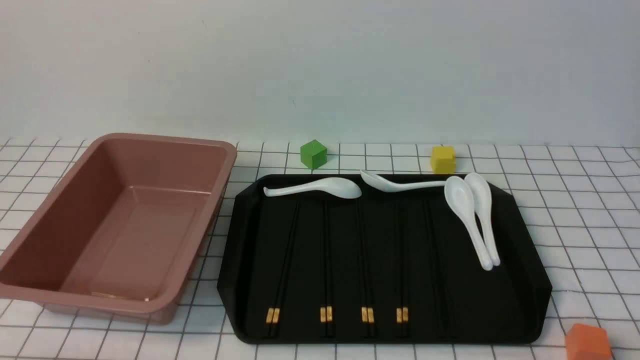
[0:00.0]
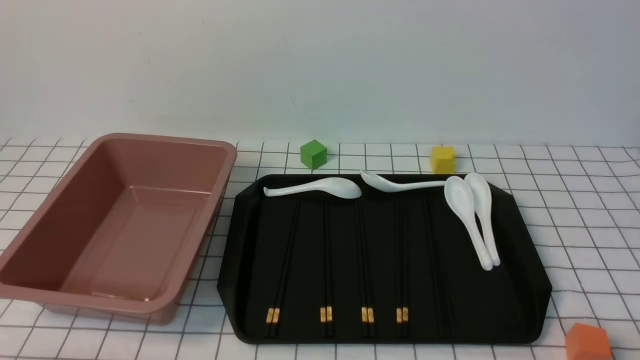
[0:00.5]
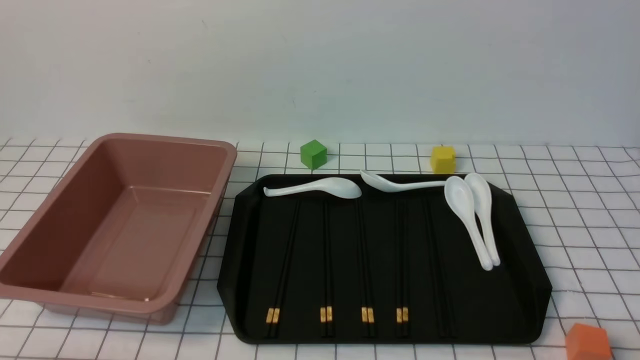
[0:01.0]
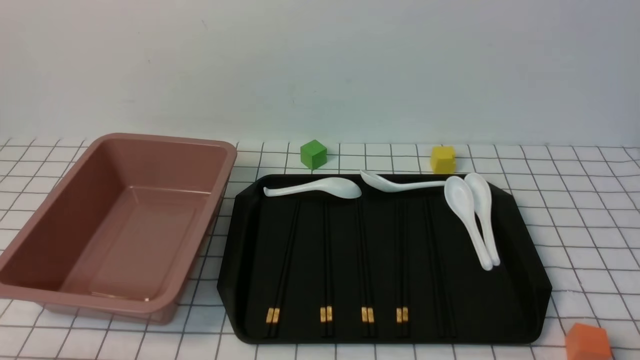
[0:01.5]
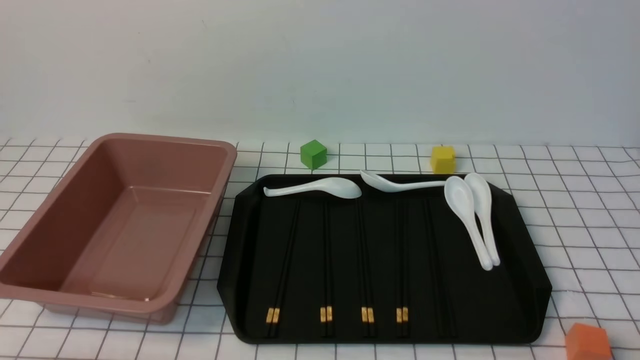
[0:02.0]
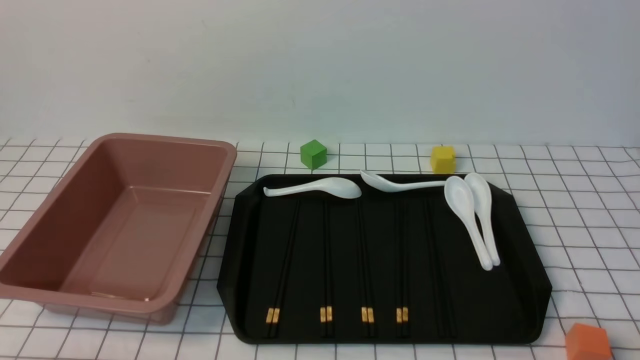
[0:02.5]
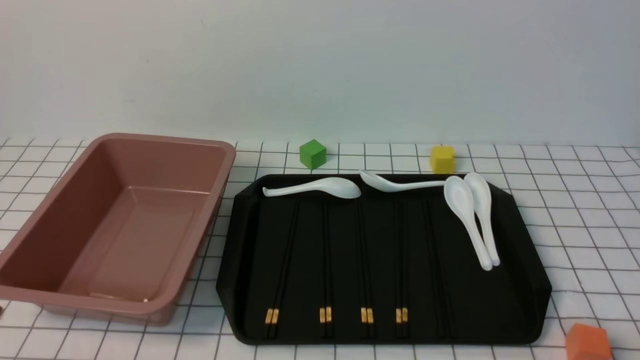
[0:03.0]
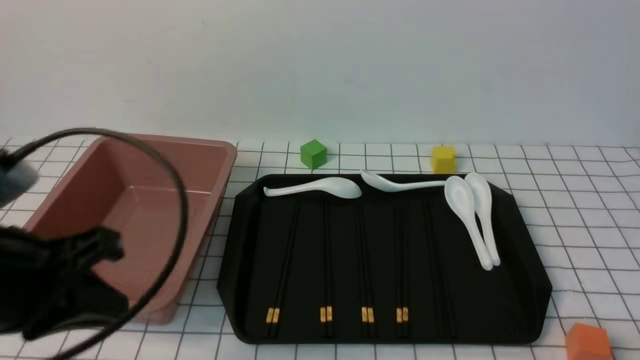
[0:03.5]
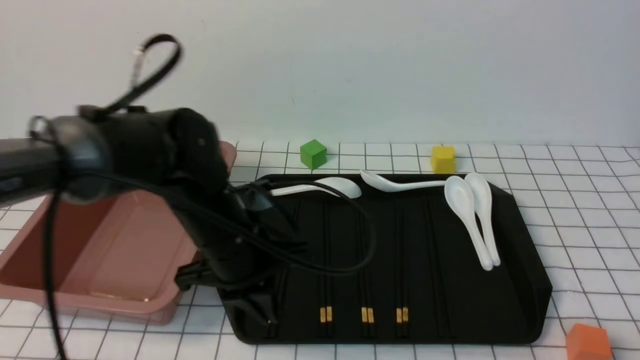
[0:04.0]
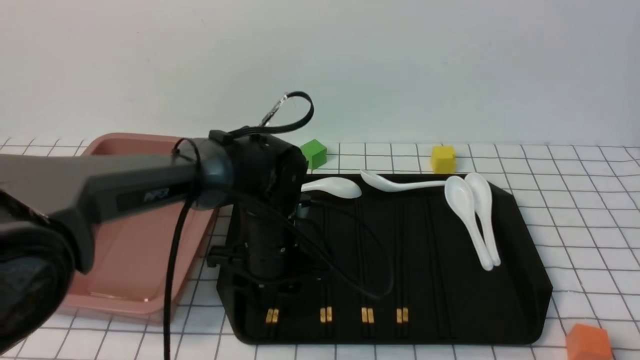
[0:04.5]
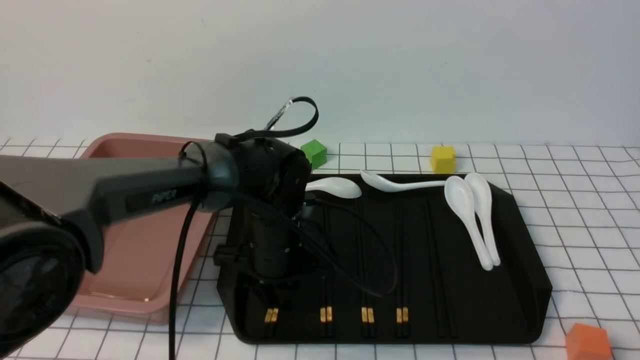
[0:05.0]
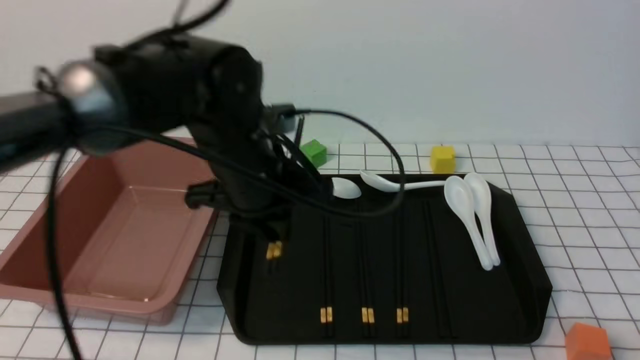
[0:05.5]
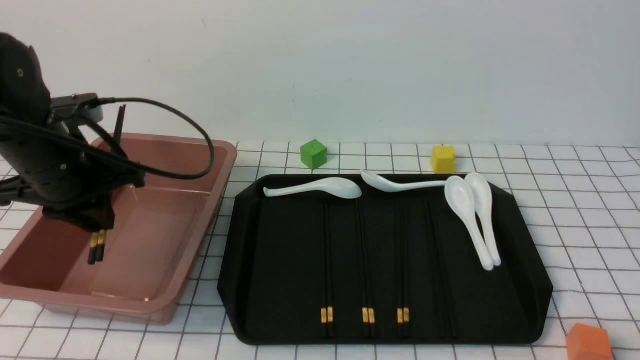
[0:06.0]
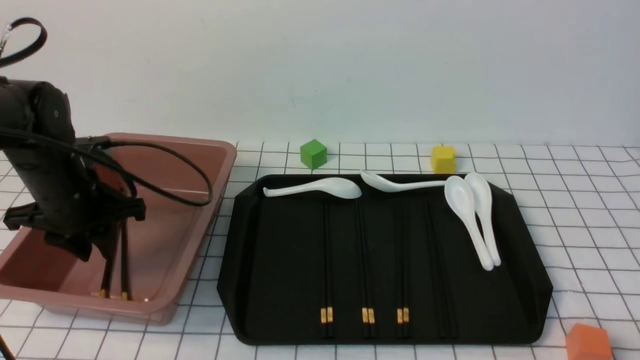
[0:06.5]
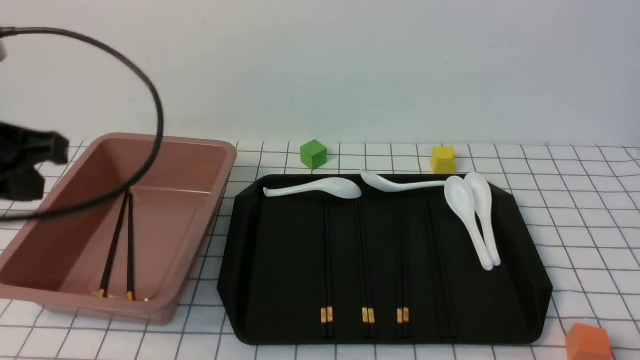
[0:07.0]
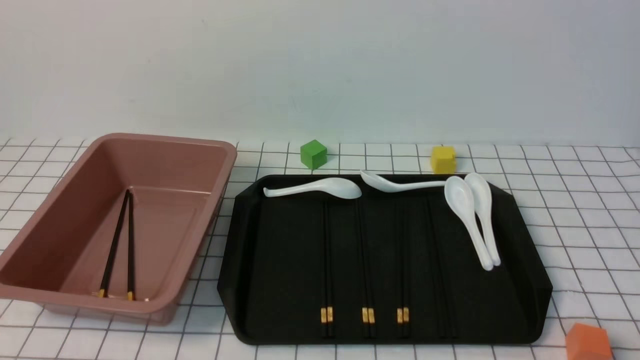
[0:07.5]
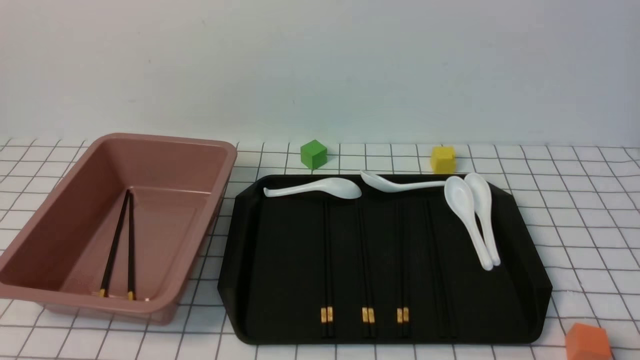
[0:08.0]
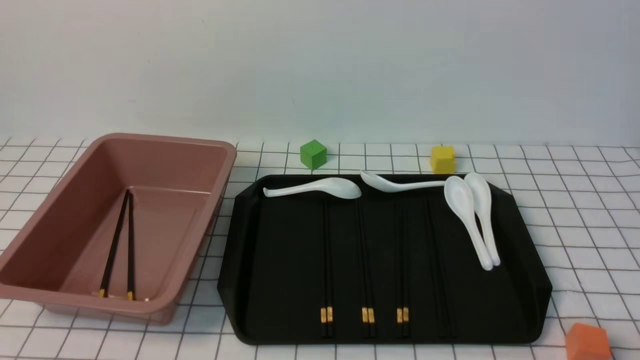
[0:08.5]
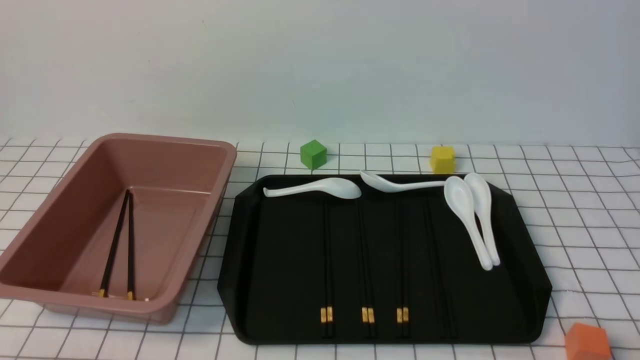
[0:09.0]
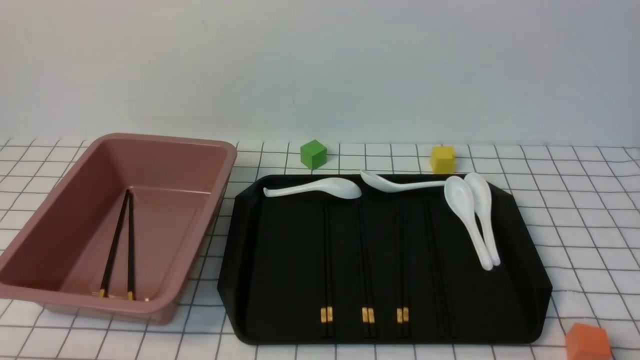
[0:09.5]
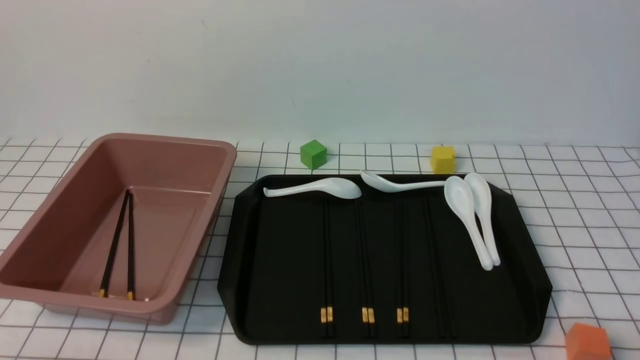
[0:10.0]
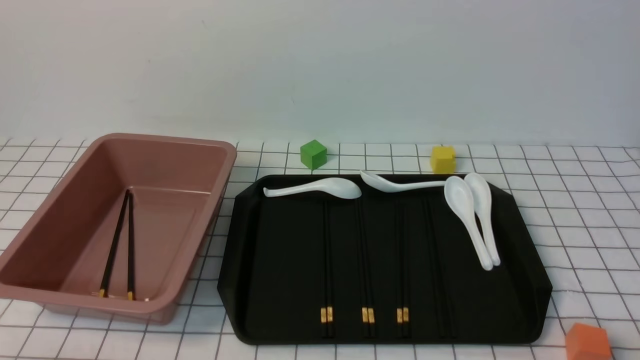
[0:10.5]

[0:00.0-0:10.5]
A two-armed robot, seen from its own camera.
Step, 0:00.0 to 0:05.0: use the left arm to grab a pair of chopsticks.
Step, 0:05.5 to 0:06.5: use the left arm to put the chopsticks into the lunch box.
0:02.0 to 0:04.0: The left gripper heads forward and to the right, covering roughly 25 cm, and closes.
0:04.0 to 0:06.5: The left gripper travels to the left and forward by approximately 15 cm, and opens its fingers.
0:06.5 to 0:08.5: The left gripper is displaced backward by roughly 30 cm, and closes up.

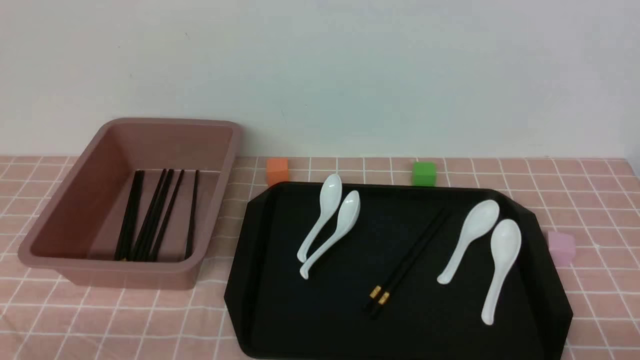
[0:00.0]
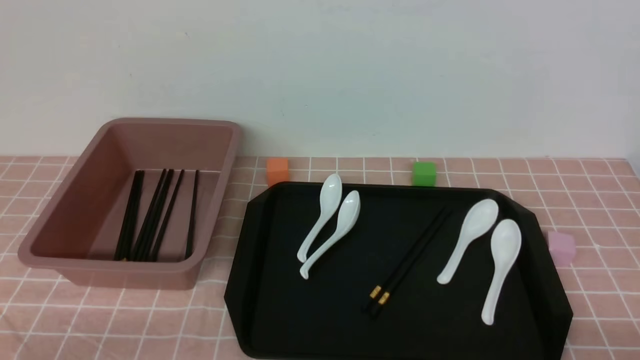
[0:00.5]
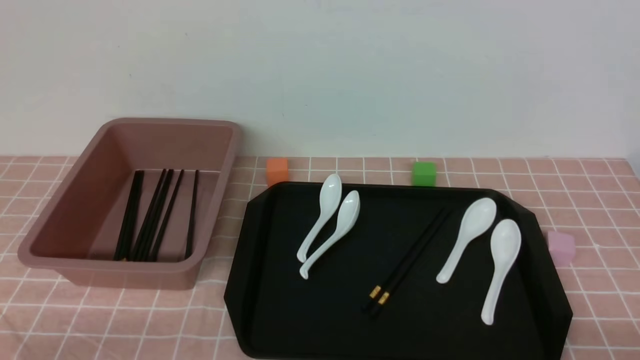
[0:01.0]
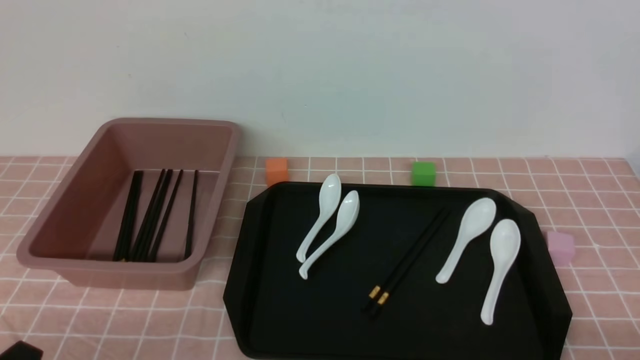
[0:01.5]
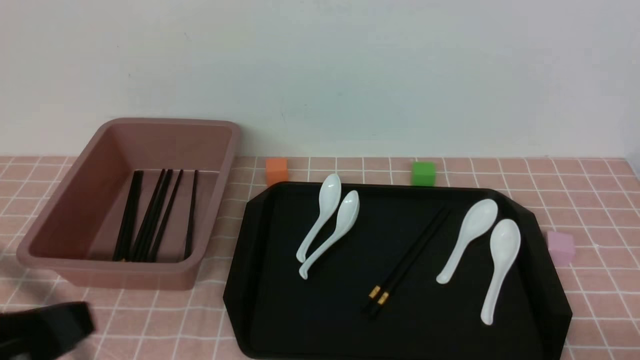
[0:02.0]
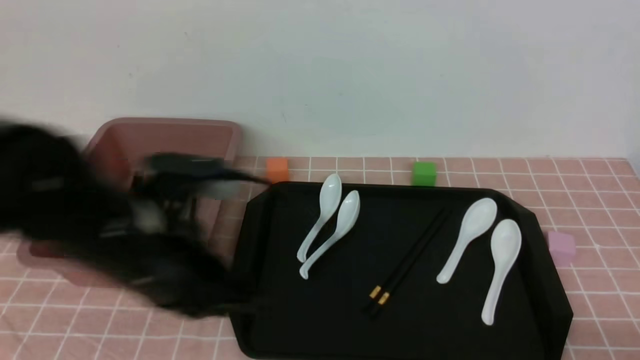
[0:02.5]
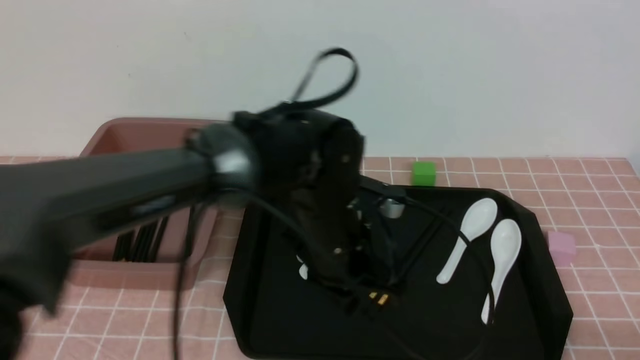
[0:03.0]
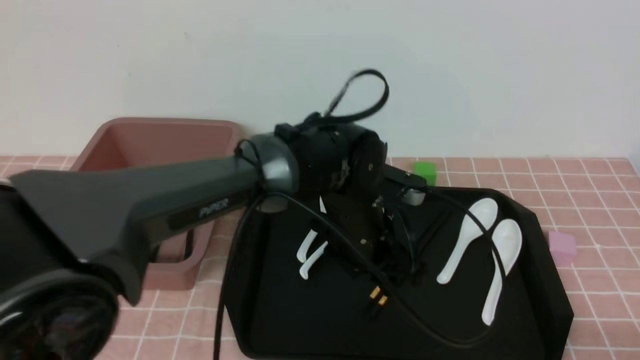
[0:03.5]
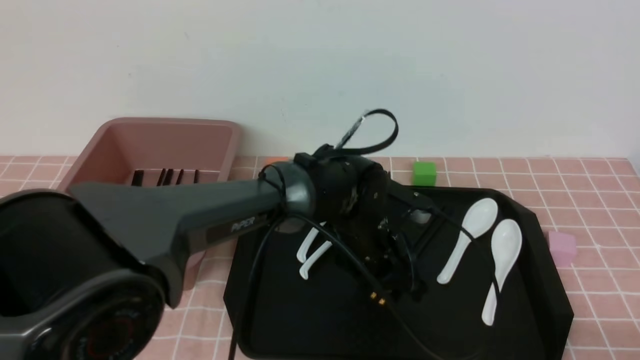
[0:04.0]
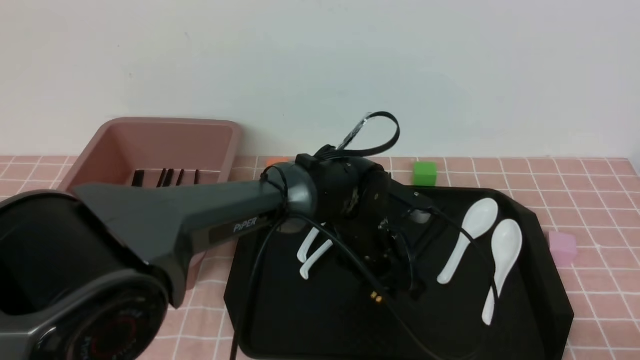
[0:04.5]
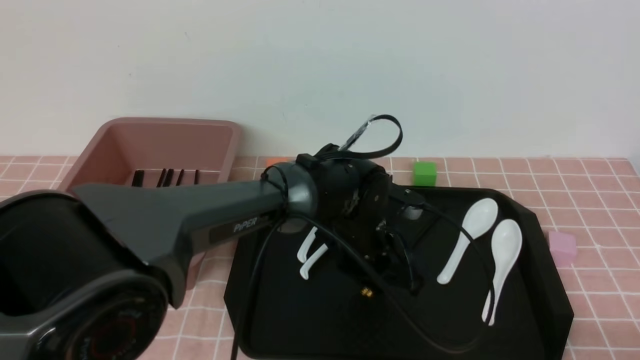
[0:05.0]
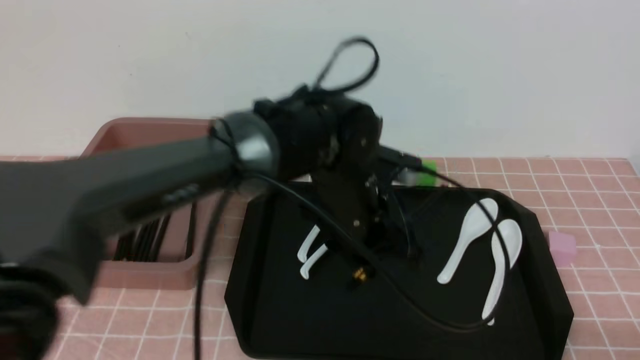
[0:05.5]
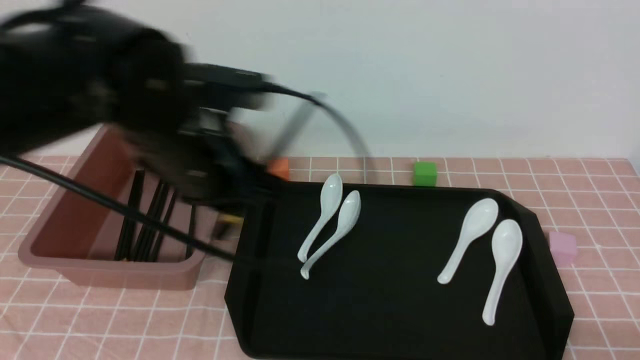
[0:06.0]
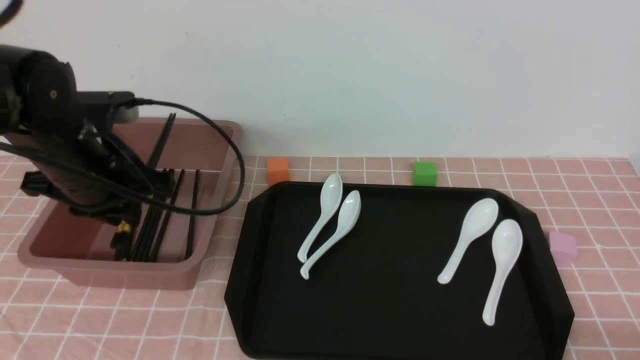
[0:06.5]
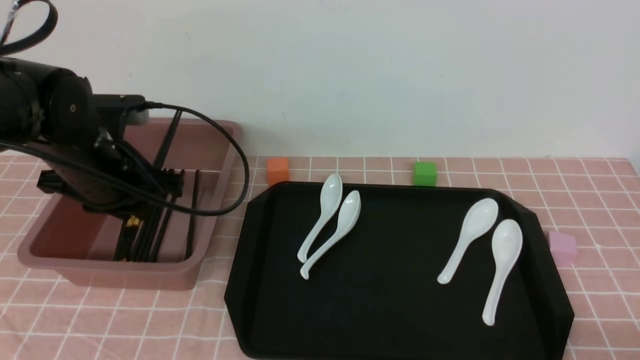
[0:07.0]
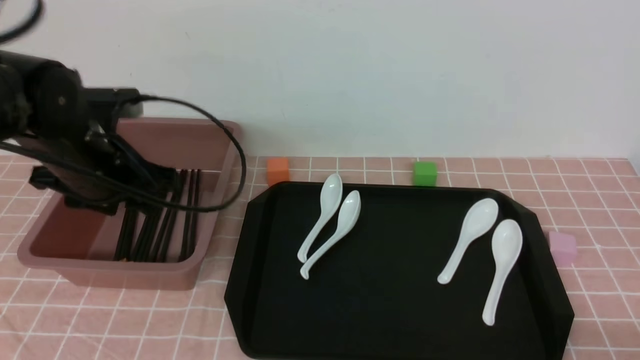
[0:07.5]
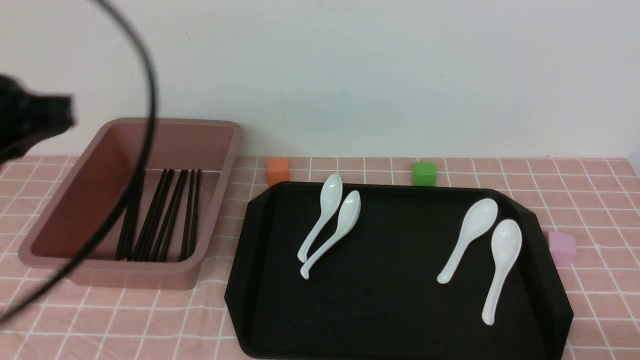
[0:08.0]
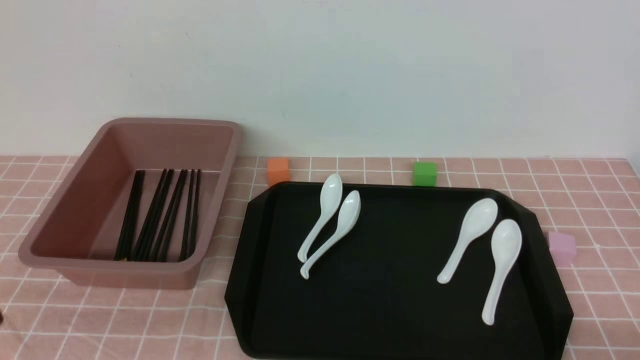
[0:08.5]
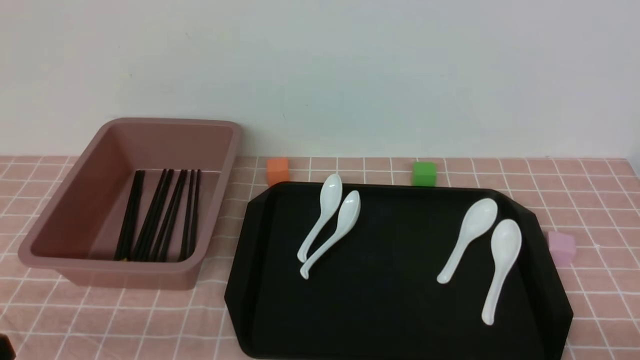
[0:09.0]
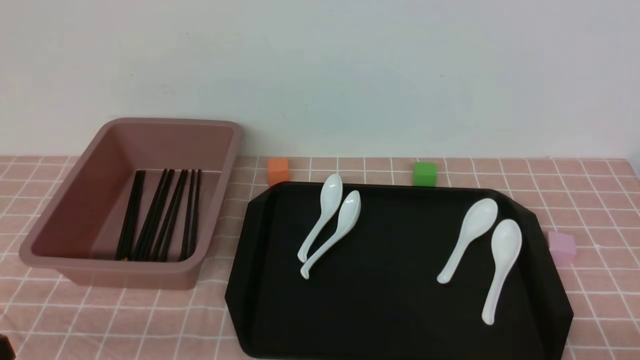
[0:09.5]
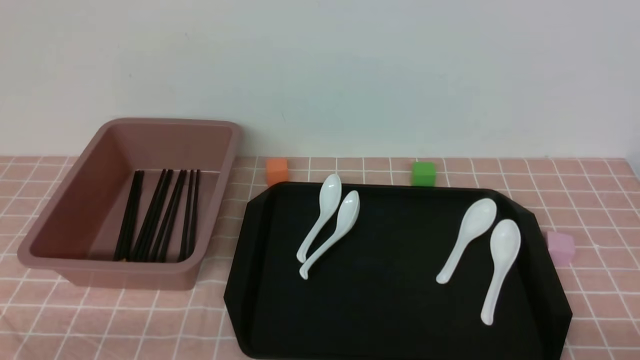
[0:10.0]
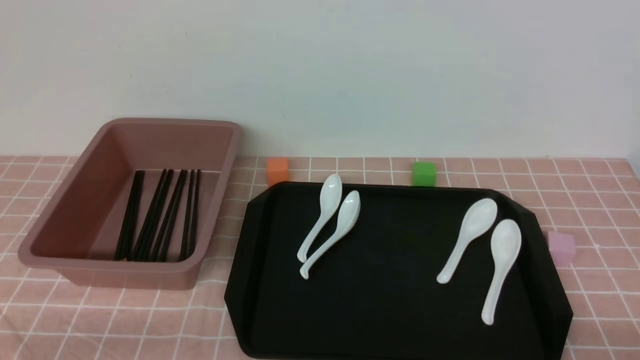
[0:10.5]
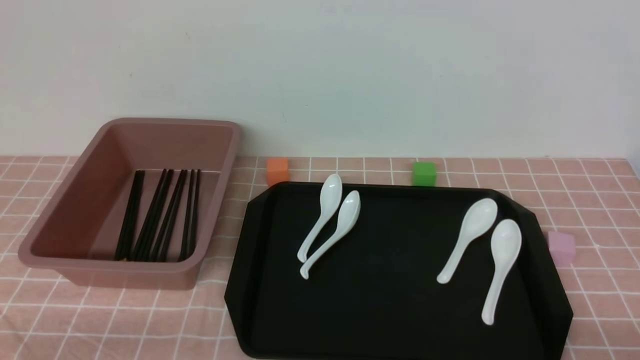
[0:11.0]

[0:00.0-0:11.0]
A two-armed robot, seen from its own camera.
Step, 0:00.0 to 0:05.5: use the left arm to grab a pair of chopsticks.
Step, 0:06.0 to 0:07.5: use the left arm to put the chopsticks into the lunch box.
0:00.0 to 0:02.0: The left gripper goes some 15 cm upward.
0:02.0 to 0:03.5: The left gripper moves to the right, forward and downward, roughly 40 cm, and opens.
0:03.5 to 0:05.5: The left gripper shifts roughly 5 cm upward, and closes.
0:05.5 to 0:07.5: The left gripper shifts roughly 25 cm to the left.
0:07.5 to 0:09.0: The left gripper goes roughly 30 cm backward, and closes.
